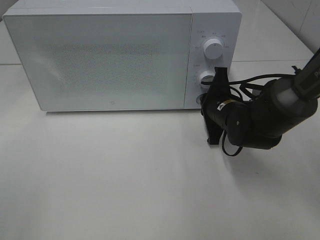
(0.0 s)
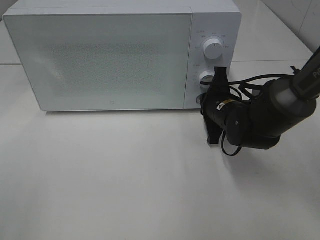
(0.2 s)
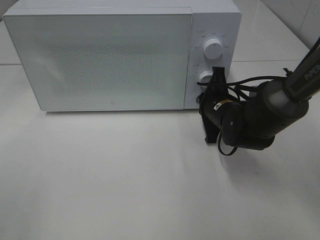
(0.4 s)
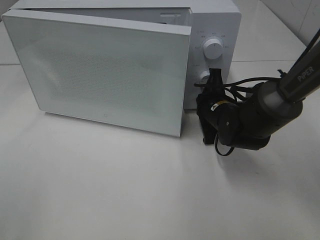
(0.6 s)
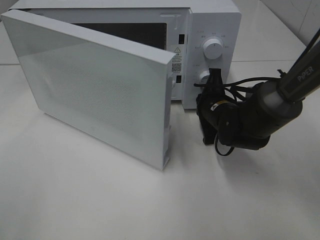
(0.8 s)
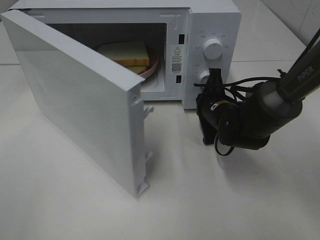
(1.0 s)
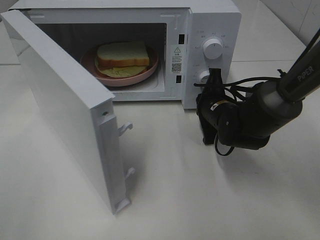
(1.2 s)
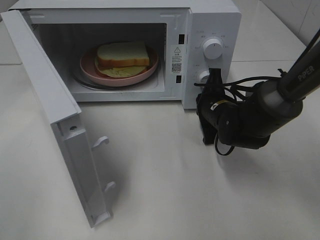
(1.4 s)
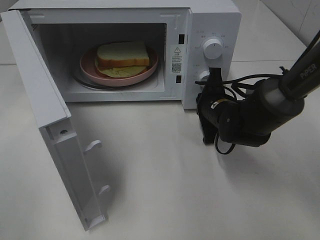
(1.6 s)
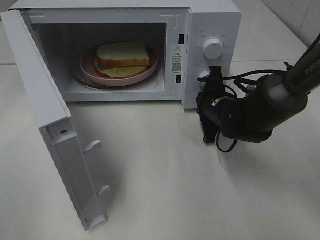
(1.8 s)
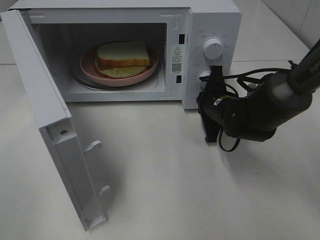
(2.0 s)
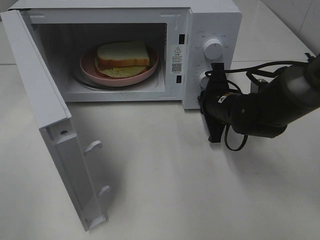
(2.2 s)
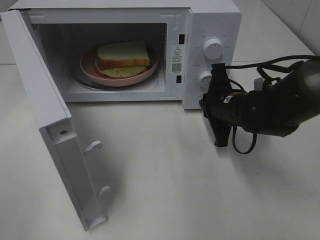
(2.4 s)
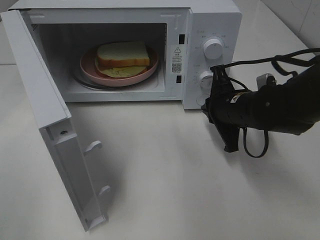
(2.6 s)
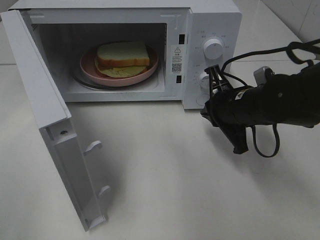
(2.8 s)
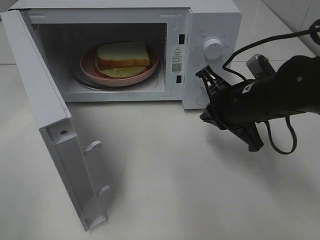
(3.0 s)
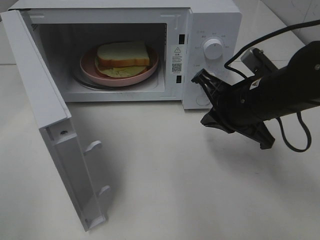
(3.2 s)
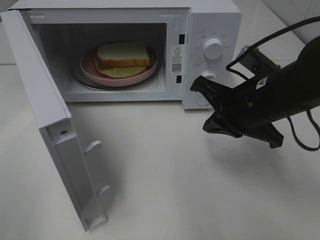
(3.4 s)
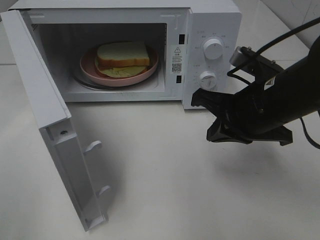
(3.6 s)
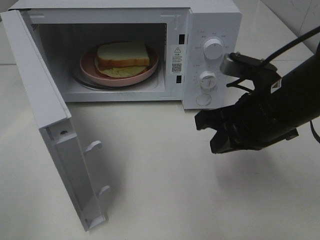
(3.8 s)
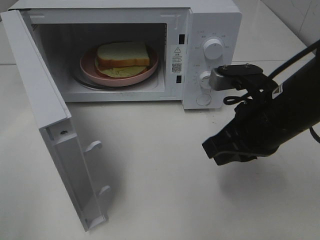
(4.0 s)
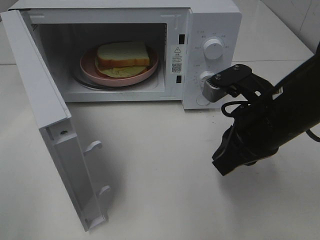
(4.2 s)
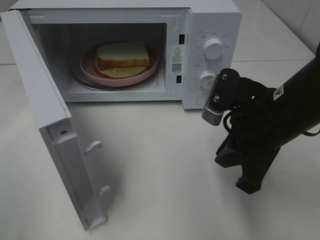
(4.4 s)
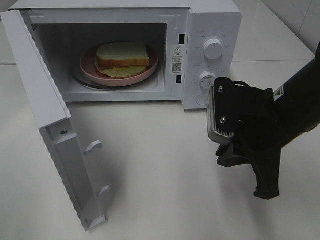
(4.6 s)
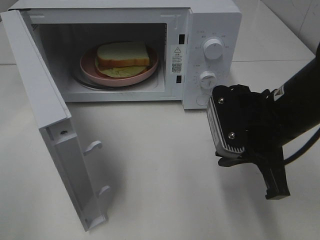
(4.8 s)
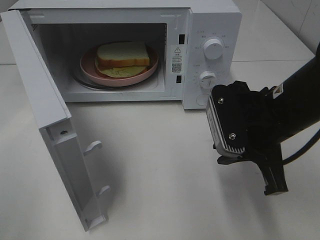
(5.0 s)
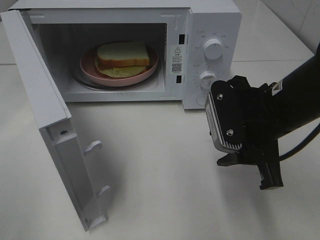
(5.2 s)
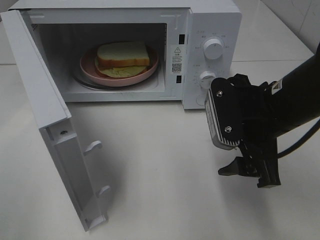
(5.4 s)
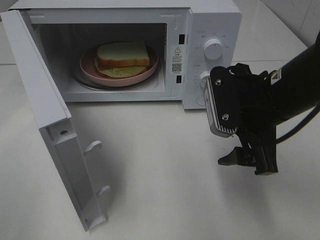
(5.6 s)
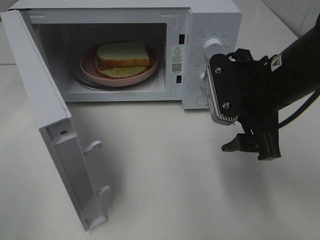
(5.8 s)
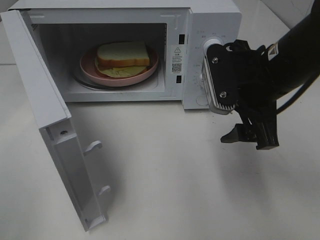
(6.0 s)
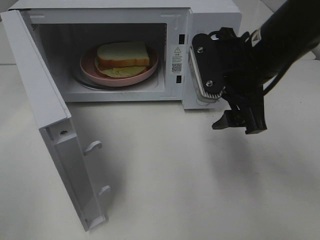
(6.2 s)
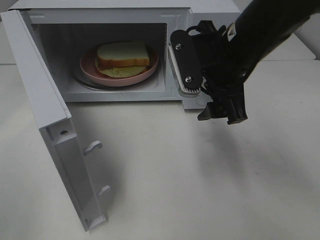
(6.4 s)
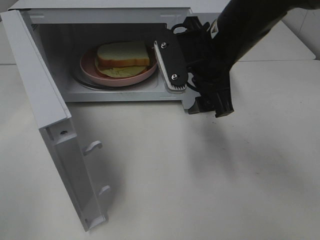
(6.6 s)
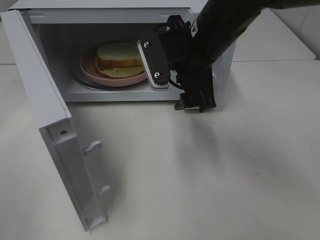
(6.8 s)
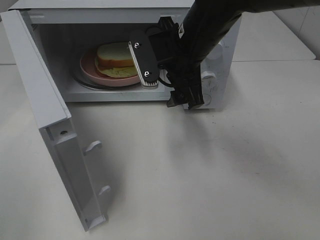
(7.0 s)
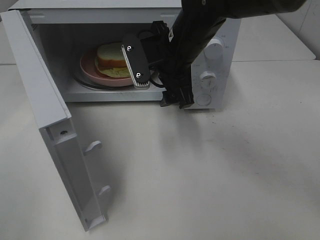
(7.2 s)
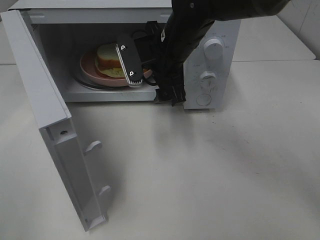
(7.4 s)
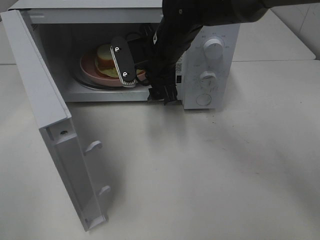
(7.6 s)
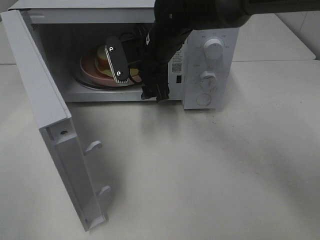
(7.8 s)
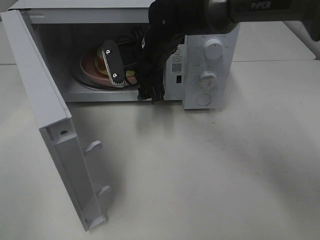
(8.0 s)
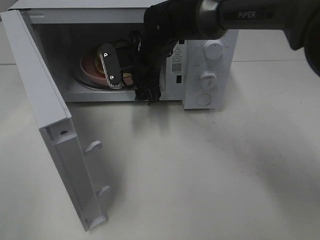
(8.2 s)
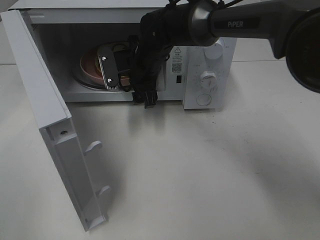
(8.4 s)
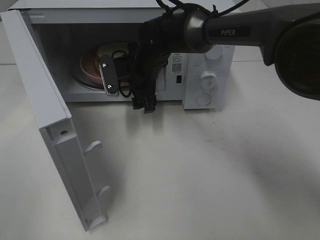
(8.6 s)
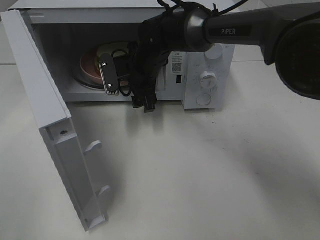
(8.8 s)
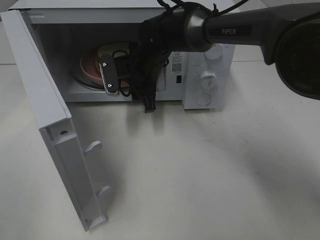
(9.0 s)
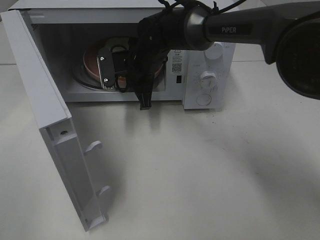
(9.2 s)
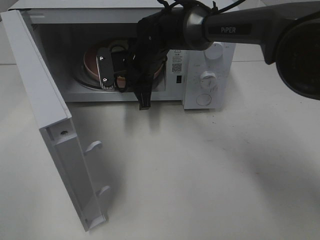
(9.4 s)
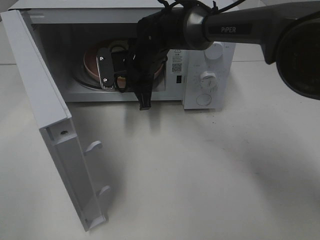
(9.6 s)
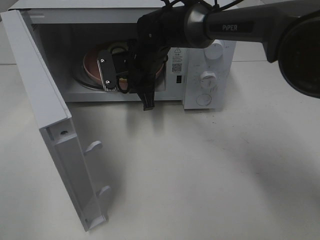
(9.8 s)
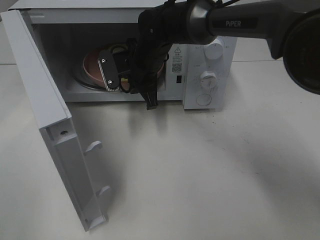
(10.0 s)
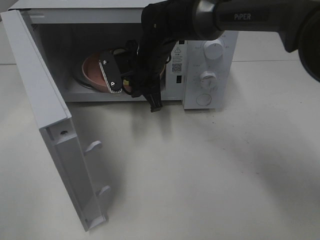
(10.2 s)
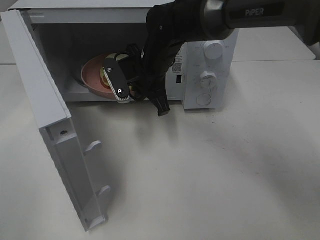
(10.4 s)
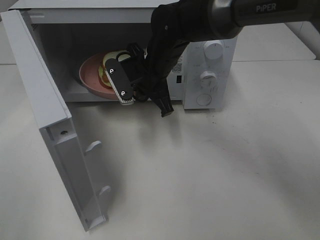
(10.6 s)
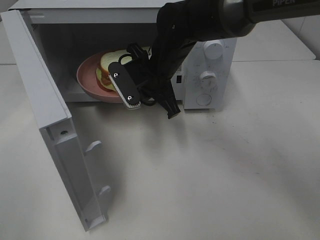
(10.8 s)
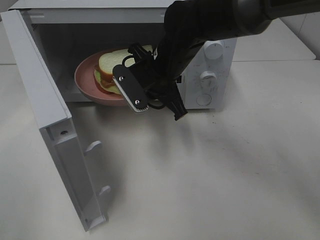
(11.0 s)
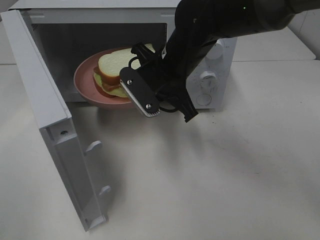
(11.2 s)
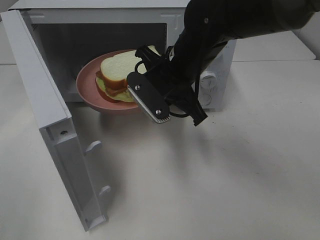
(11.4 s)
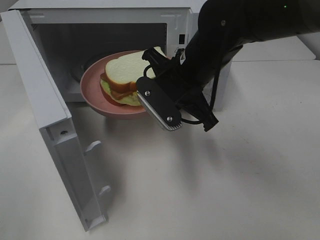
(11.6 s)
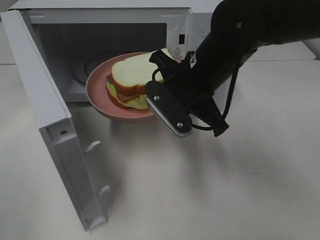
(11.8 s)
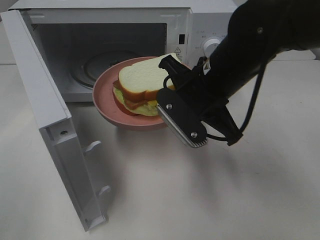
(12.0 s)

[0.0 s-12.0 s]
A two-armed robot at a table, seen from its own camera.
Task of the whole recording: Heat Sandwich.
Step, 0.0 to 2.4 s: Right hand: press the switch.
Step, 2.6 to 9.8 s: Right hand: grab the plate with the sandwich.
1.6 to 3.0 s: The right gripper heads upward and backward, covering about 10 cm.
3.0 to 4.4 s: The right gripper moves backward, some 5 cm.
4.4 to 6.0 s: The right gripper moves some 5 cm, and opens its fingers.
6.0 to 7.6 s: The right gripper heads to the left and forward, covering about 20 cm.
7.6 to 9.0 s: The right gripper goes about 5 cm downward, and closes up.
9.0 to 10.4 s: The right gripper closes up.
10.4 to 12.0 s: The right gripper is displaced backward and to the right by some 15 cm.

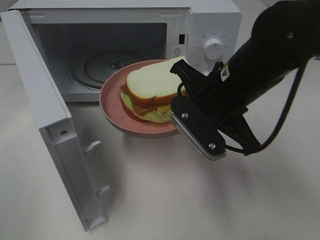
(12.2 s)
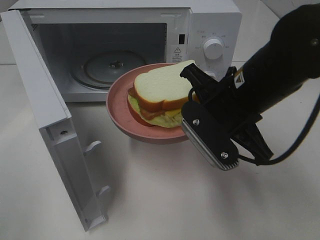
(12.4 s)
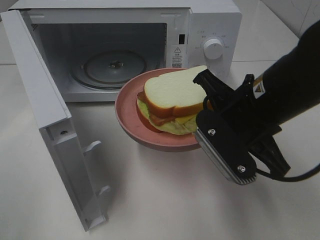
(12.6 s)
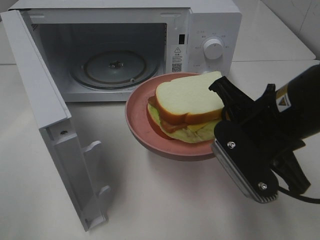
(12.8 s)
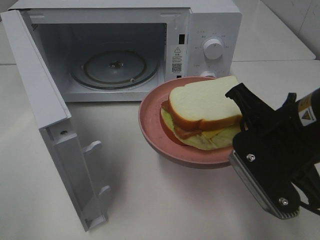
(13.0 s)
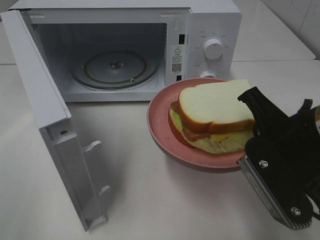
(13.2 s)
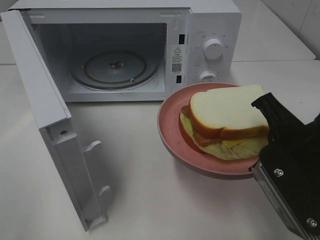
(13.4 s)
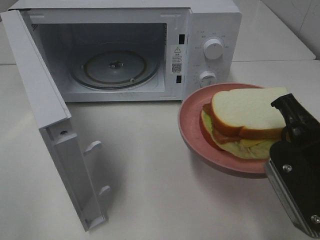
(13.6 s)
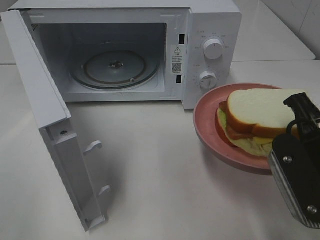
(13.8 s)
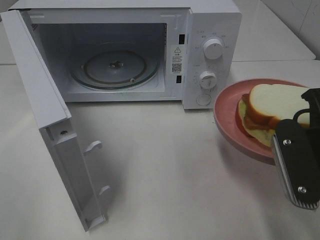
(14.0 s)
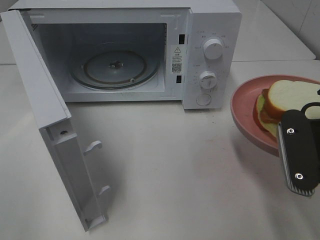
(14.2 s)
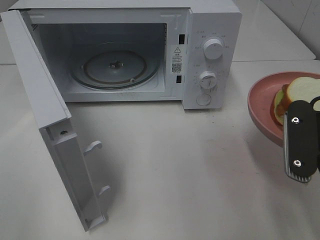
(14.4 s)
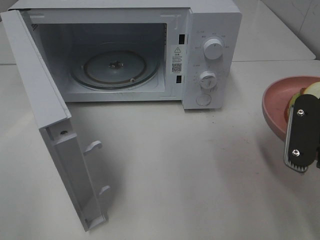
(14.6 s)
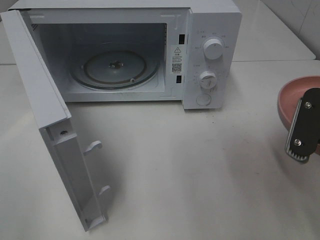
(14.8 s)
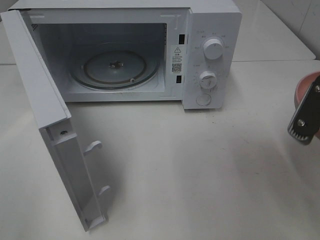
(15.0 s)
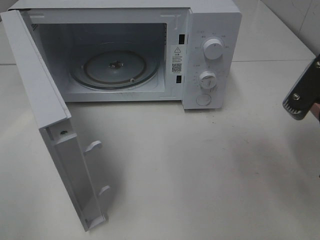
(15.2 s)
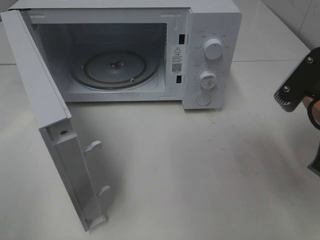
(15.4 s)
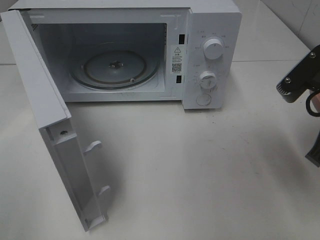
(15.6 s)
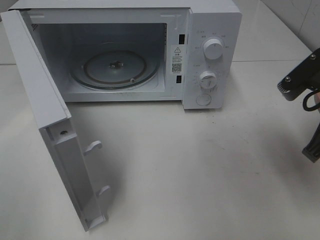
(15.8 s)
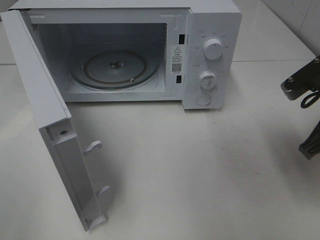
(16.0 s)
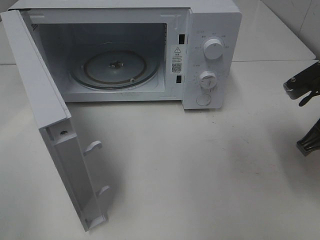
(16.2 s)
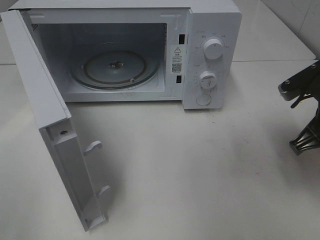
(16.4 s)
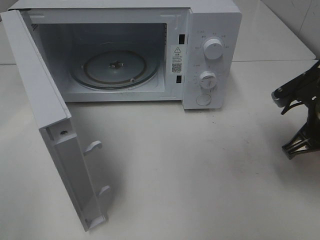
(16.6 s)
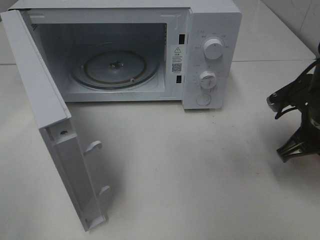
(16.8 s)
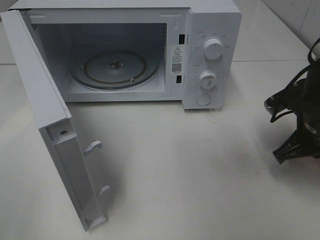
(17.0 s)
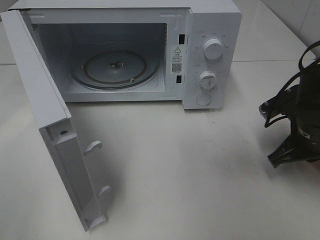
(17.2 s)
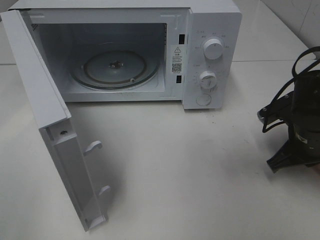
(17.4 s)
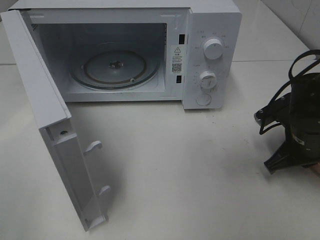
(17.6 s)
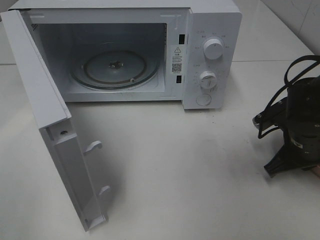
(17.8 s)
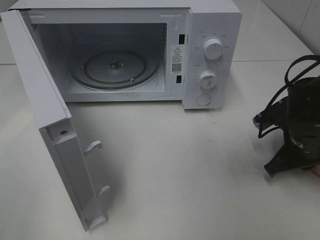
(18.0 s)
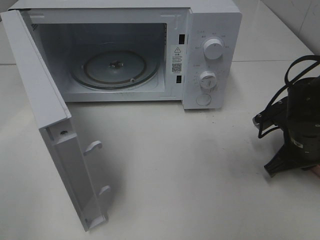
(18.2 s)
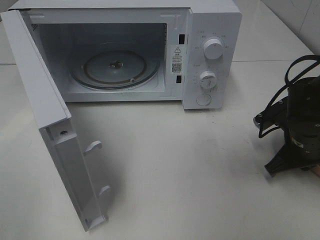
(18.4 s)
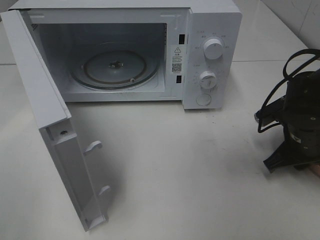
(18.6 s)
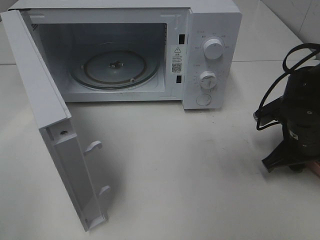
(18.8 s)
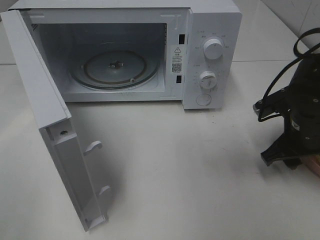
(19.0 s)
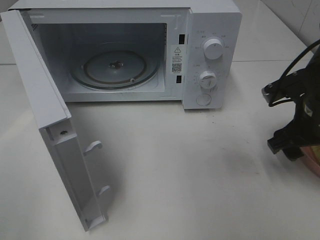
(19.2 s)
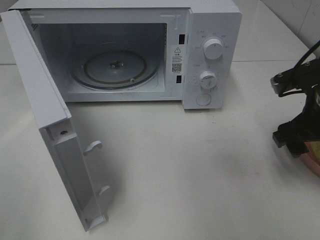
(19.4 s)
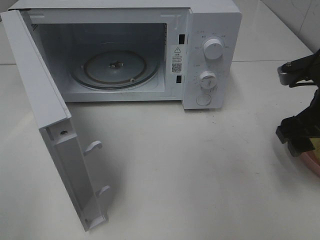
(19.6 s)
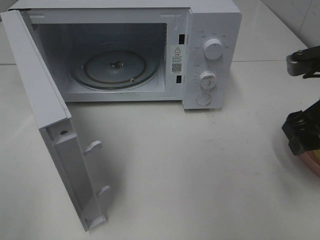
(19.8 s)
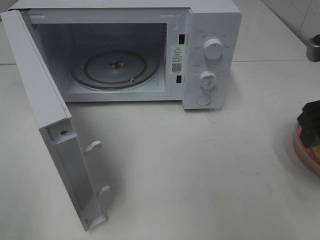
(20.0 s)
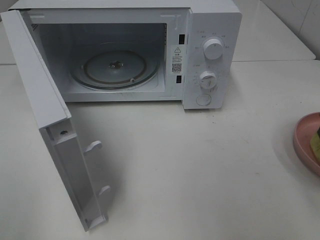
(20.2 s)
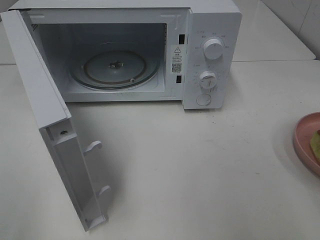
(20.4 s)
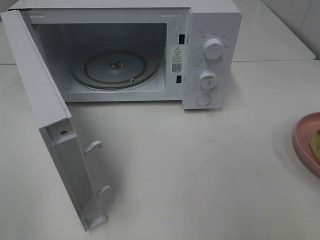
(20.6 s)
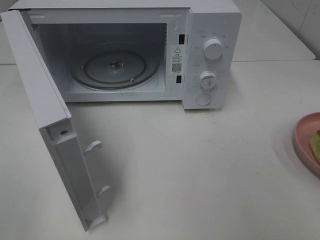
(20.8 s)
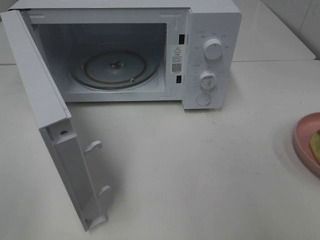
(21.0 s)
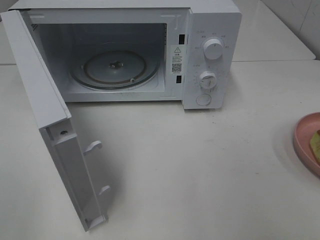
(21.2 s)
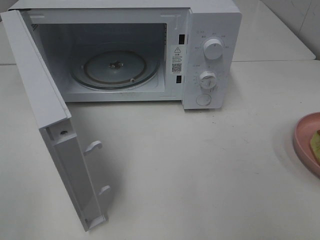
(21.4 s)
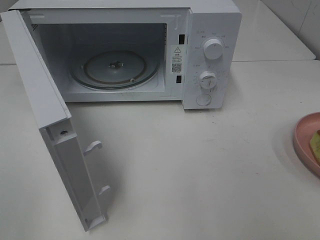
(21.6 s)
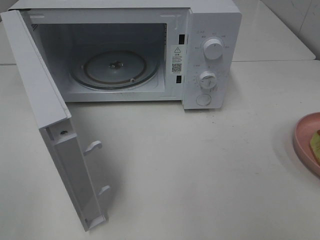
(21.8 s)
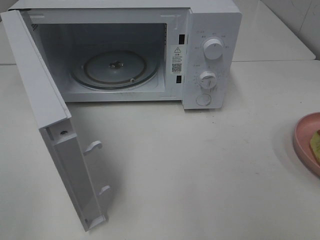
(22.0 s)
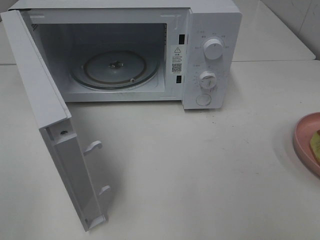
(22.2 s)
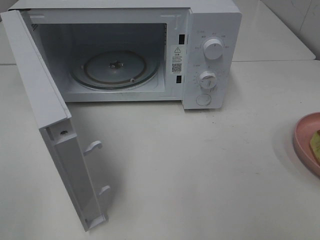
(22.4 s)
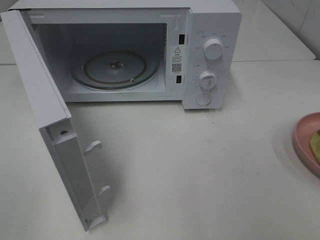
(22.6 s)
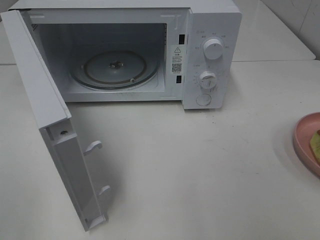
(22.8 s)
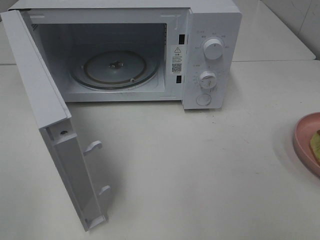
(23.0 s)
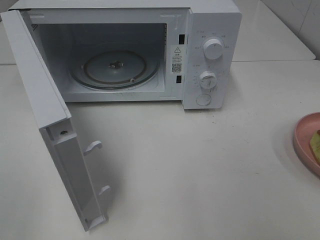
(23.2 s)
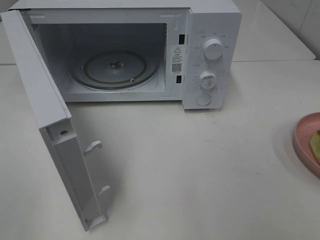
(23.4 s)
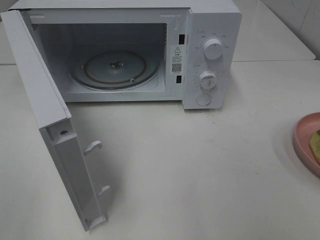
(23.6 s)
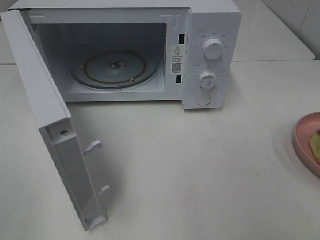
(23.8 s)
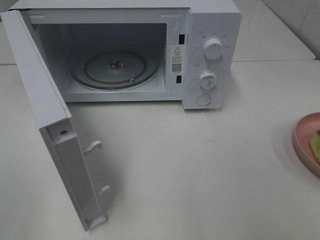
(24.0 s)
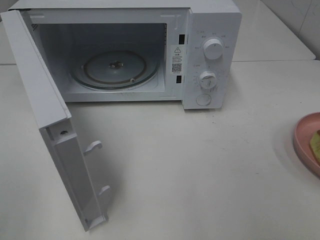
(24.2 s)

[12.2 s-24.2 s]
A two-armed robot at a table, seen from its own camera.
Task of the whole recording: Heat Sandwich.
Step, 12.2 to 20.0 s: Right hand: place the plate on the table.
12.2 to 13.8 s: The right gripper heads backward and to the right, covering about 15 cm.
15.2 to 16.6 s: The right gripper goes roughly 10 cm forward and downward.
16.6 to 18.2 s: The right gripper travels downward by some 5 cm.
18.2 to 19.8 s: The right gripper goes about 15 cm upward, and opens its fingers.
19.8 to 21.2 s: The right gripper goes approximately 15 cm backward.
